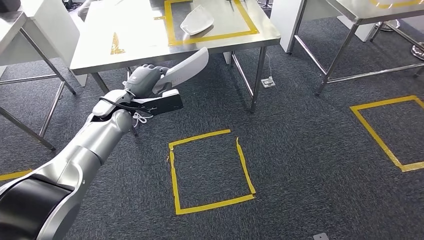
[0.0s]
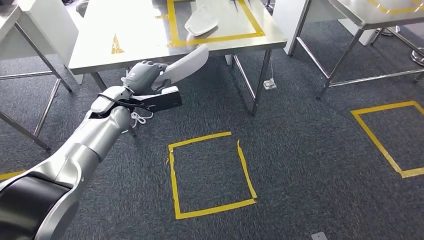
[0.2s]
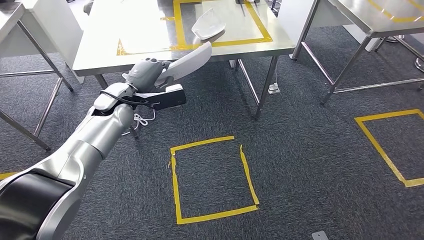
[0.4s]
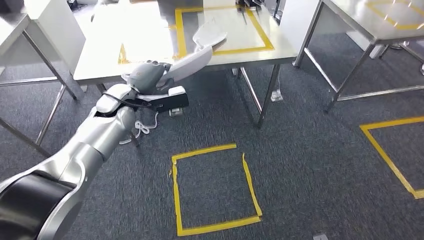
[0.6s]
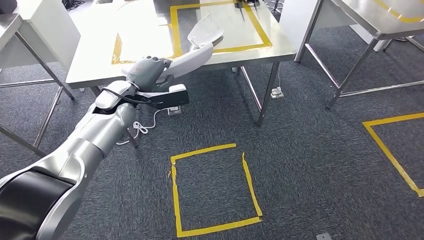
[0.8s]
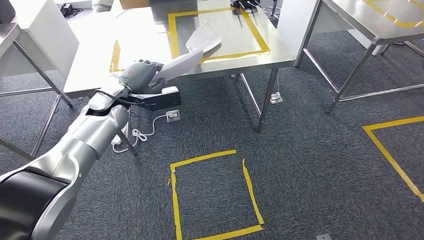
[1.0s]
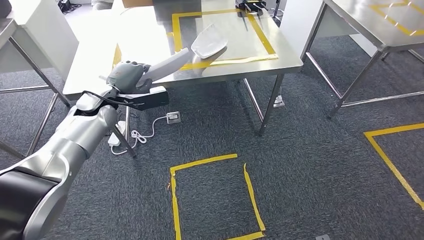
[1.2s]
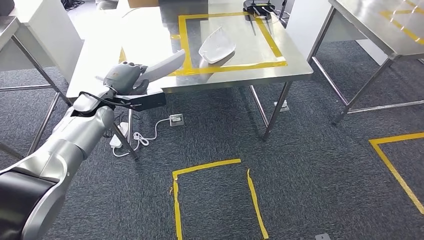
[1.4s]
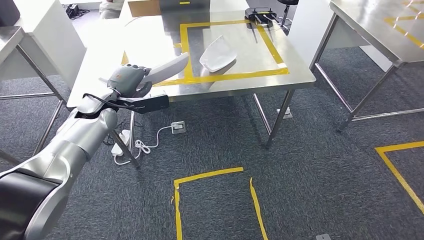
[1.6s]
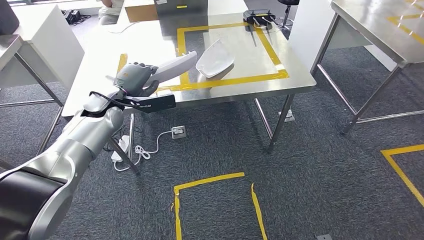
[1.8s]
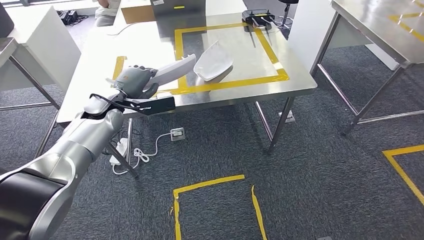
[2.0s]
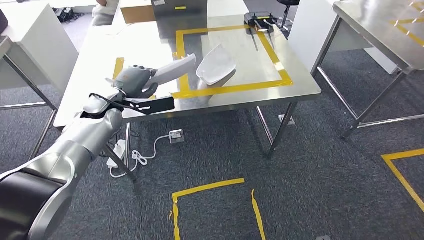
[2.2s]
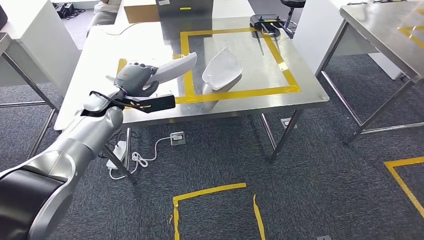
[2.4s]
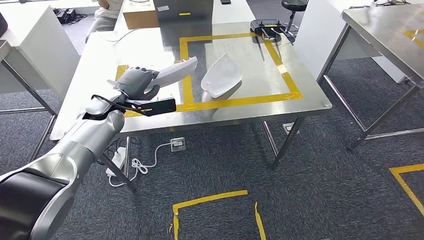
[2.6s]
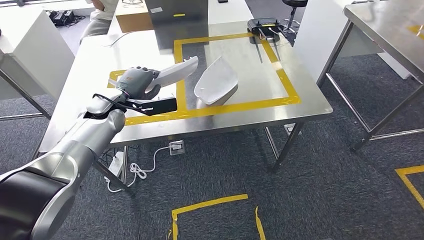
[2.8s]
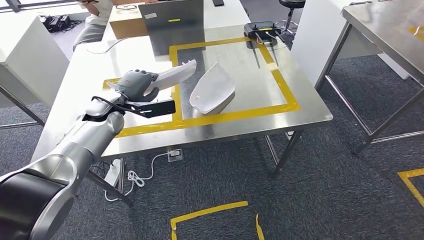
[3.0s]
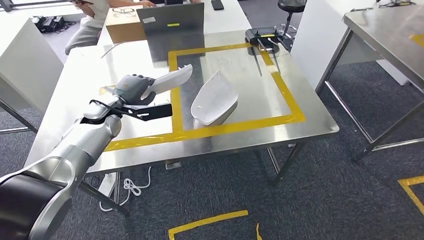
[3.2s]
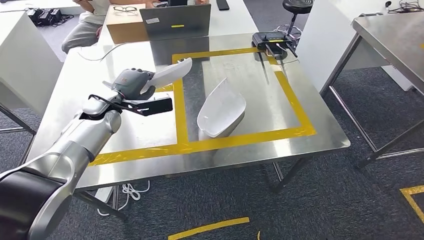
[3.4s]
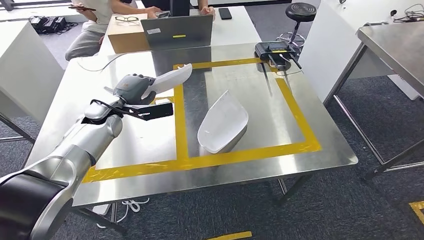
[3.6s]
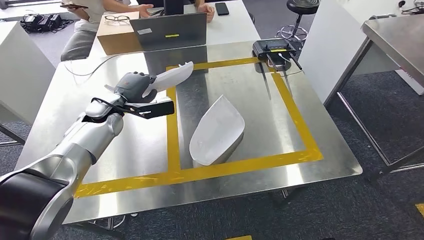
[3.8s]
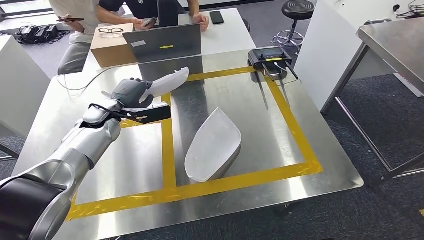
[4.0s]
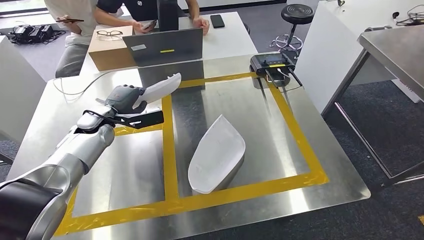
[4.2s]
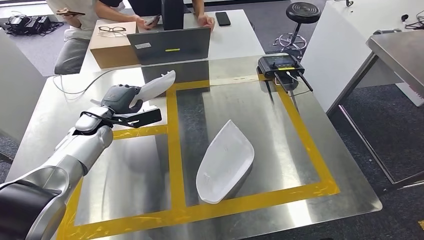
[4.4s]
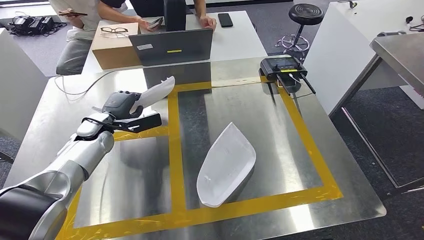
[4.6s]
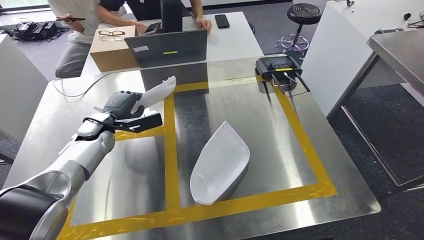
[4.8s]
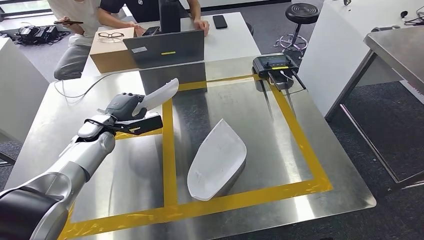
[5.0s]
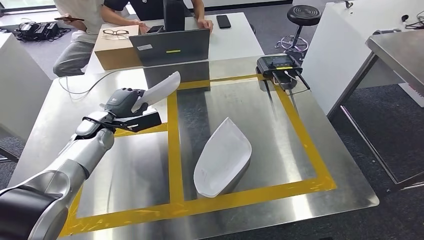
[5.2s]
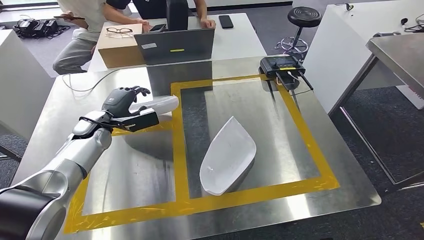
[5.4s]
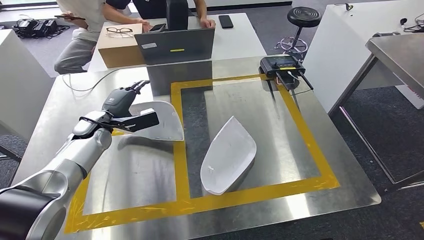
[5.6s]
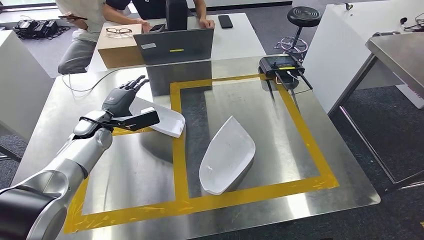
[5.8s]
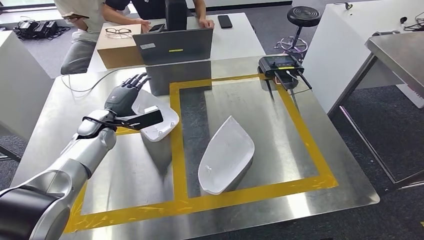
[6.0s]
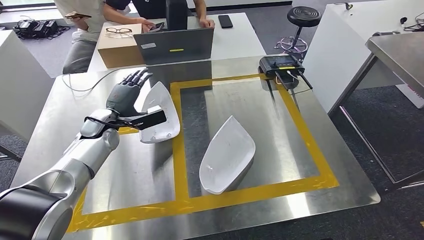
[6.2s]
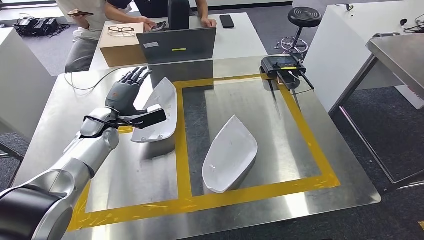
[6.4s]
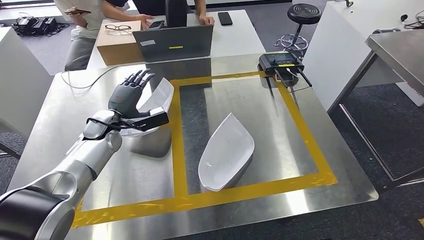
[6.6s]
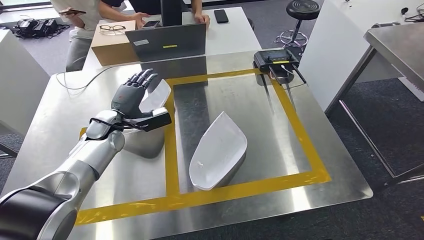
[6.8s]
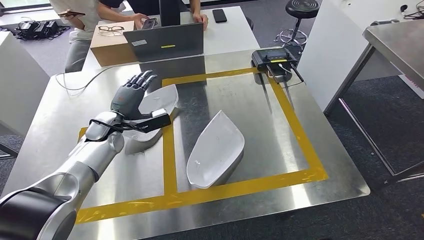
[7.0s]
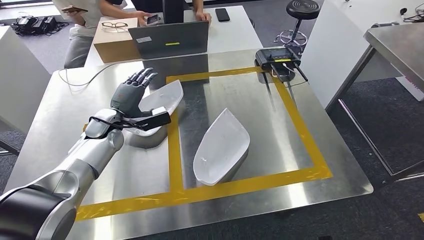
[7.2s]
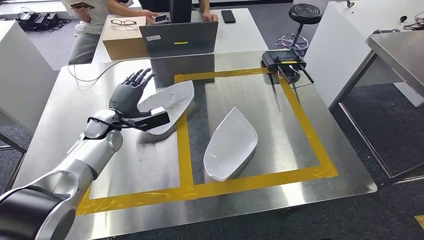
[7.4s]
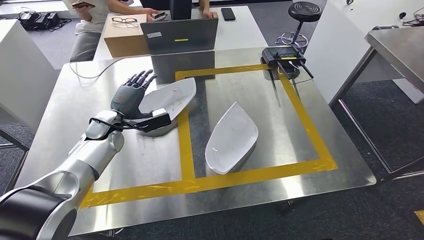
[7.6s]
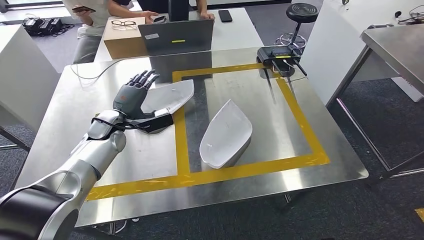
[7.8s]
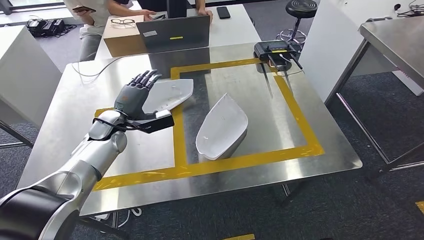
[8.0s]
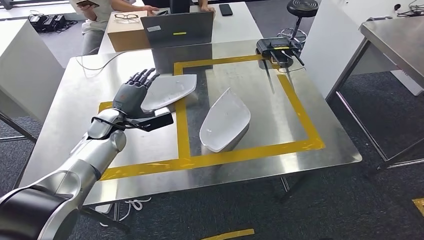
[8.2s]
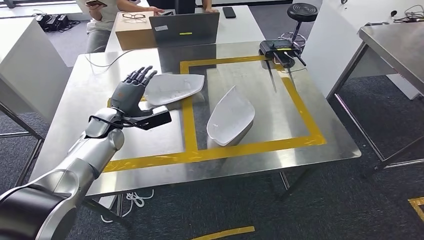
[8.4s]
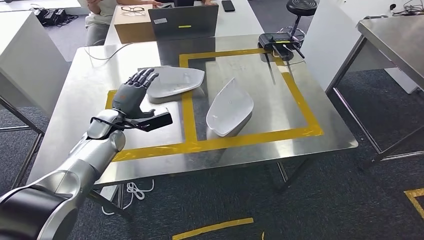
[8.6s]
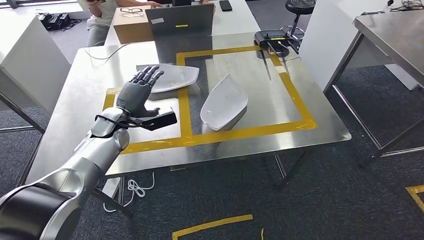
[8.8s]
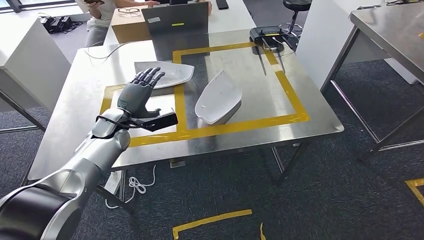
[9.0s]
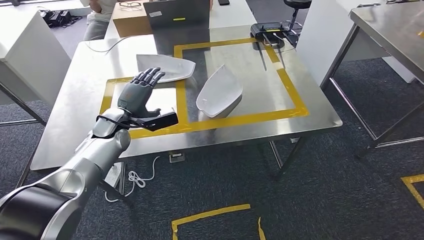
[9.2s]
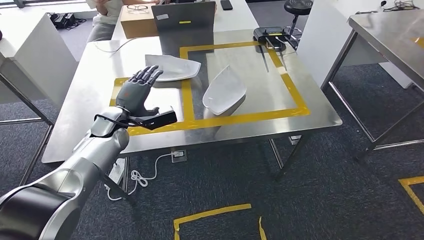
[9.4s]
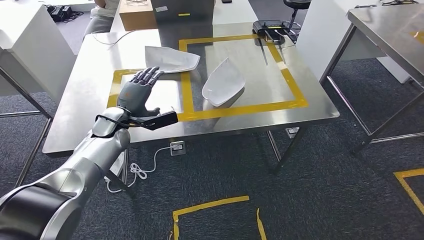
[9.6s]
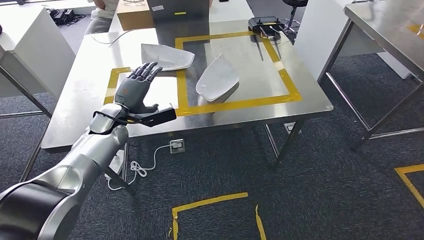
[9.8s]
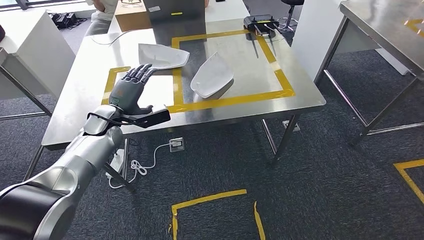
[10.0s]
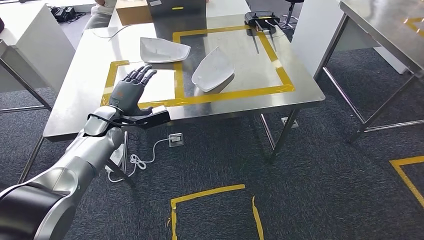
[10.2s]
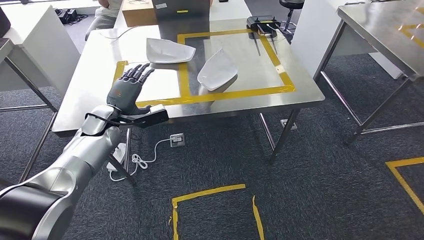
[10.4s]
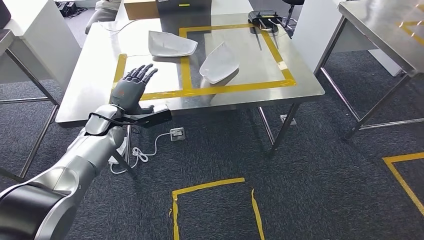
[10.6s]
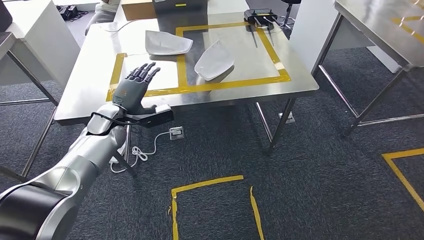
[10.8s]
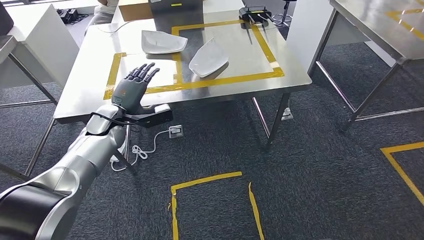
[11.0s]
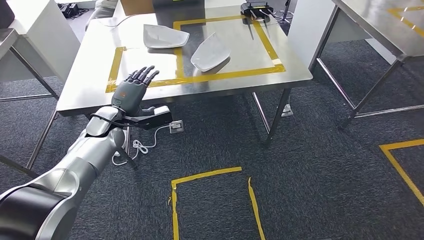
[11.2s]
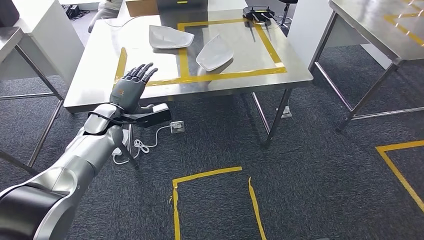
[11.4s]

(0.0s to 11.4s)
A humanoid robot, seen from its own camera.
Step, 0.2s - 6.4s: Insert the small component into the corresponding slot on the workbench.

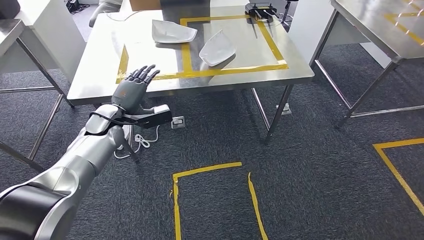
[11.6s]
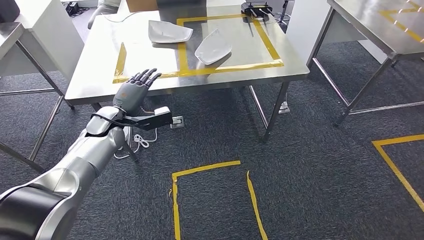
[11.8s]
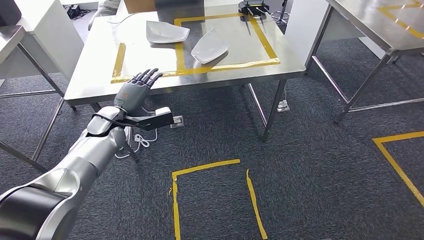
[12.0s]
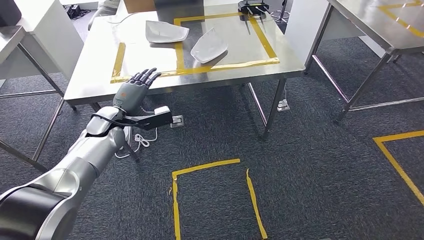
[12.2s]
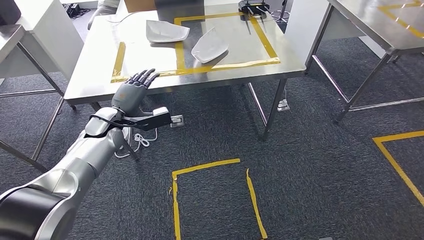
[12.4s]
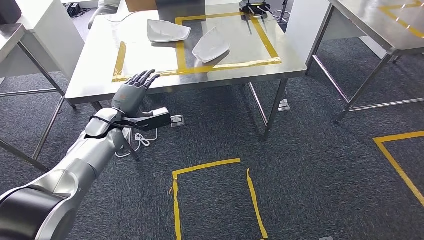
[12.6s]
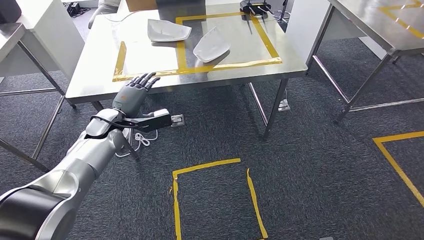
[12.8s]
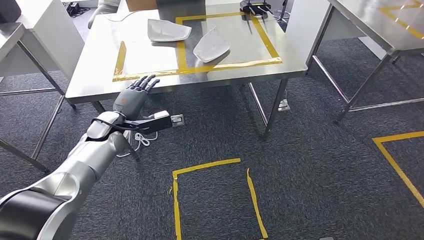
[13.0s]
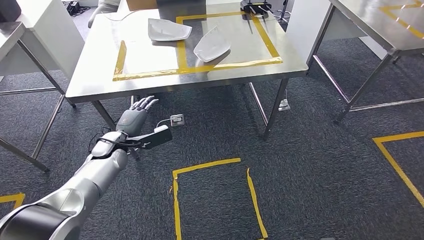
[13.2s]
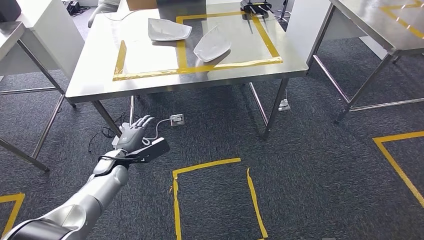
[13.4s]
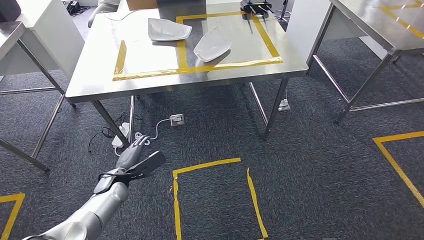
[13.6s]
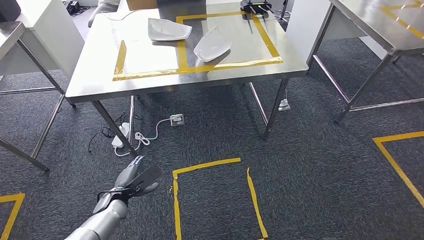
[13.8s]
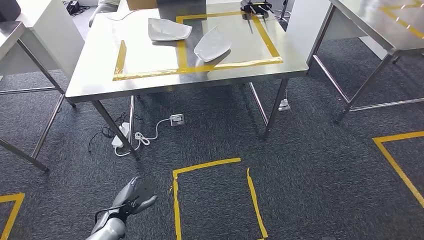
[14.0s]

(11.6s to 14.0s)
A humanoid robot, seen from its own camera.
Step, 11.6s - 13.8s: Move to the initial position of the workbench.
11.6s - 12.8s: The hands make only small movements.
12.8s - 14.0s: The left hand heads downward and backward, covering about 30 cm.

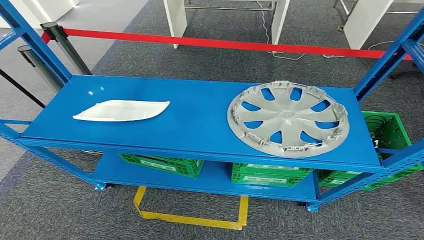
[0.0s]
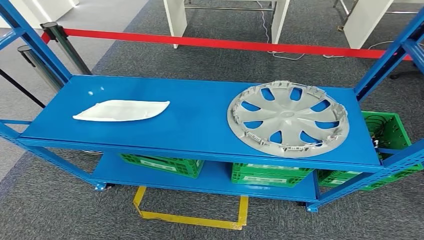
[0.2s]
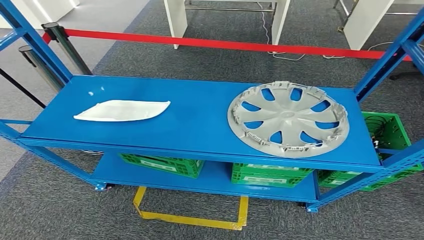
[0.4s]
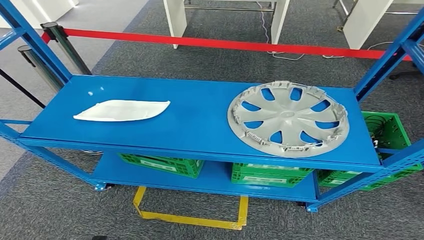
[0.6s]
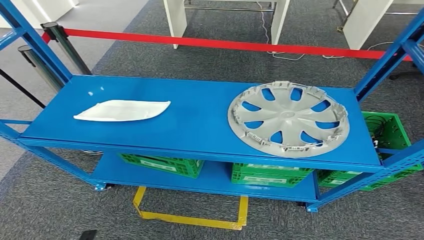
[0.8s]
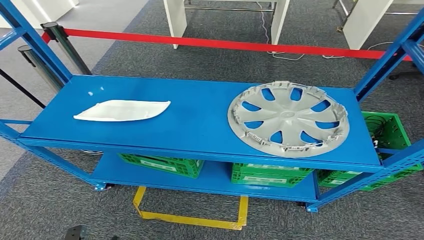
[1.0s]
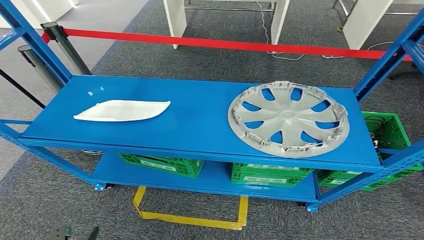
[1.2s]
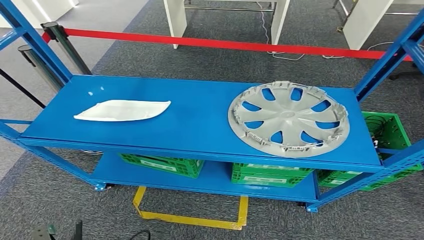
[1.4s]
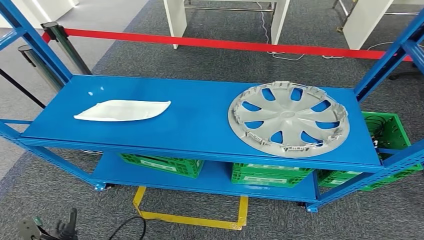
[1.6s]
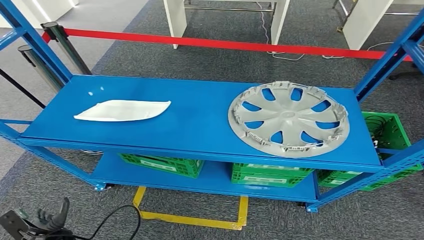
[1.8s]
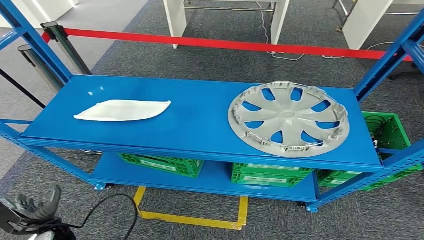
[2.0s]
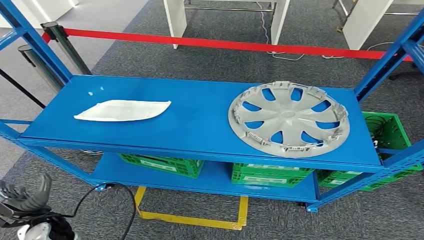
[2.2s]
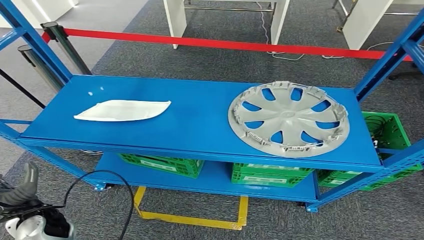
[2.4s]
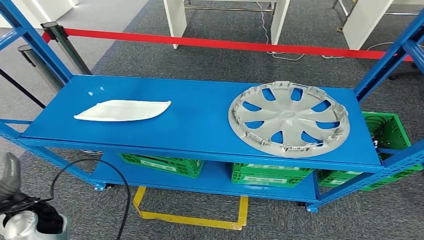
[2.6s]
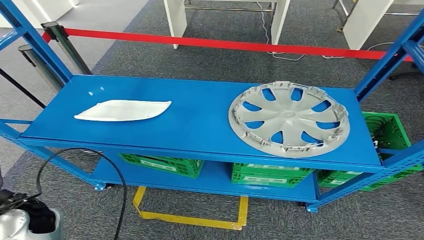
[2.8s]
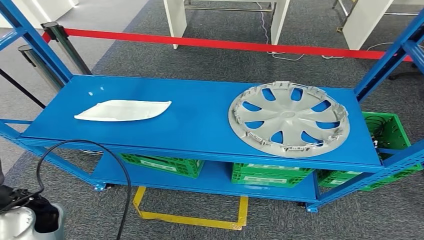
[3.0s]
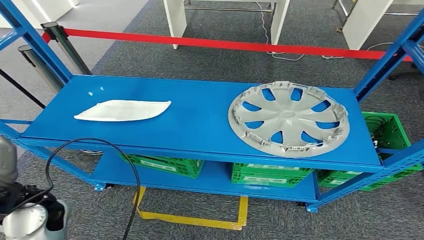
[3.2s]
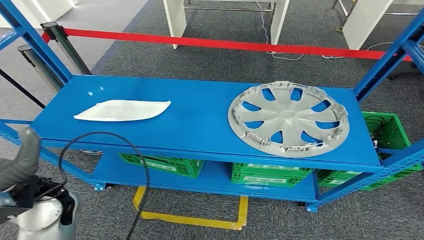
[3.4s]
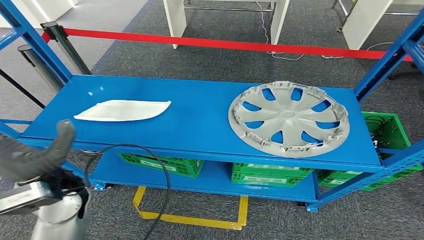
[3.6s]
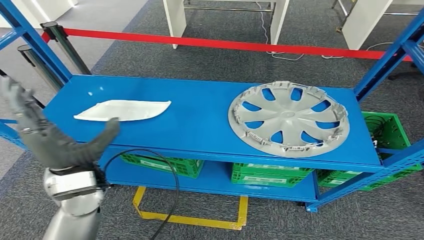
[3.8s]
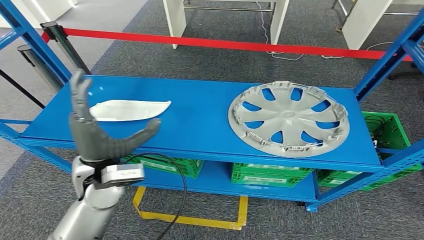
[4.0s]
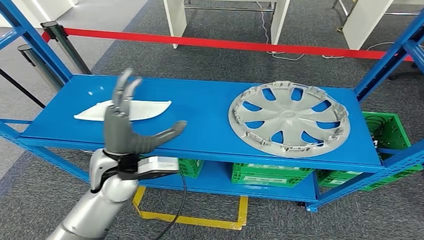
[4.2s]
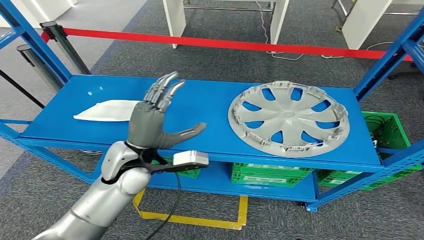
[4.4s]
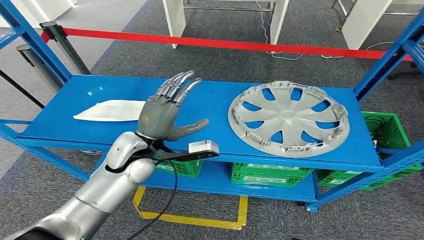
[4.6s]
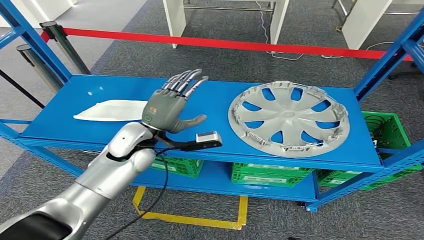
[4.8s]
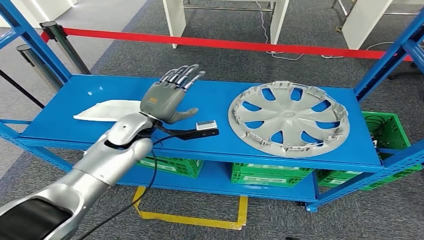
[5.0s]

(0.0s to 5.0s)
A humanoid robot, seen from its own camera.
1.6s - 3.4s: The left hand moves upward, approximately 30 cm.
3.4s - 5.0s: The left hand travels forward and to the right by about 20 cm.
